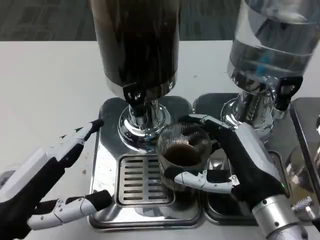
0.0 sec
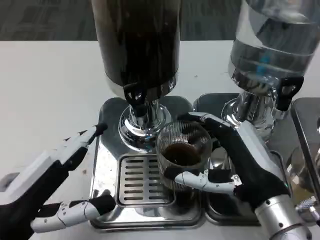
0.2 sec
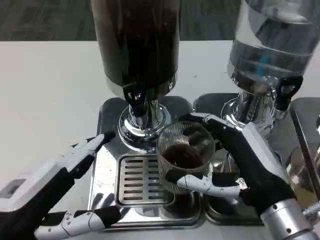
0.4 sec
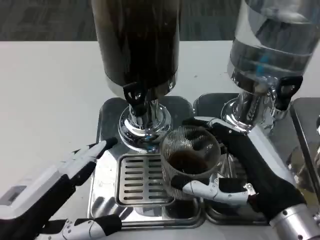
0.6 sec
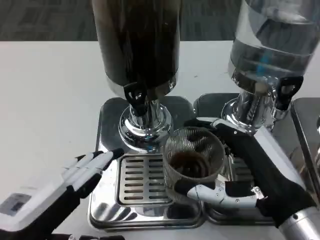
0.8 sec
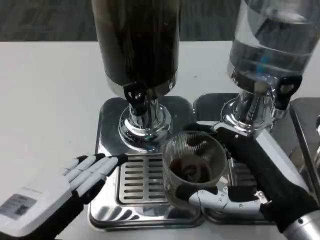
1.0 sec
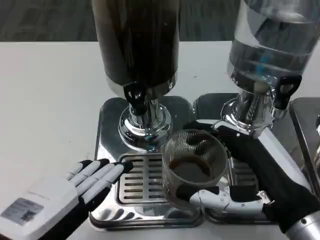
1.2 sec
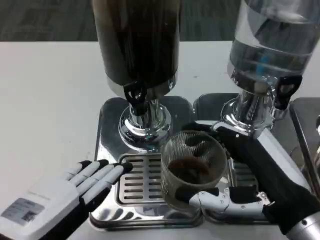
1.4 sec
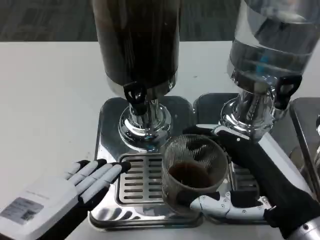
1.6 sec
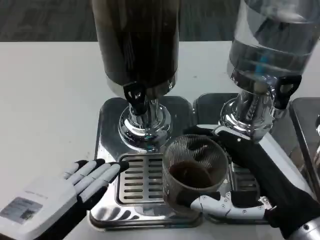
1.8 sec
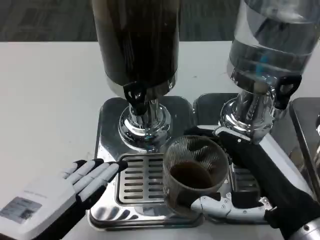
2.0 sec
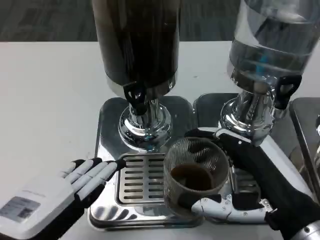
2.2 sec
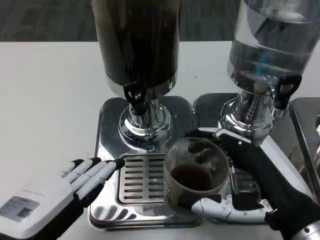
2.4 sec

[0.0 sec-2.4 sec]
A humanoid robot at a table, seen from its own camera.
Task of the whole recording: Grasp the cup under the faucet to collect the drink, then remove the cup.
0.0 sec to 1.2 sec: The right hand changes place by approximately 5 cm.
1.2 sec to 2.4 sec: The two hands keep their place.

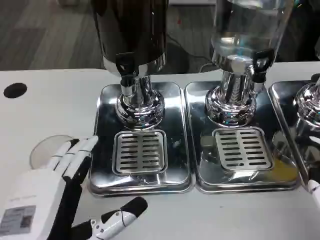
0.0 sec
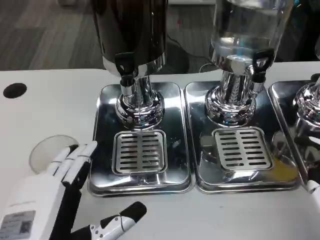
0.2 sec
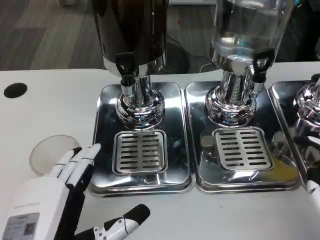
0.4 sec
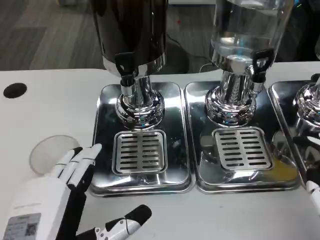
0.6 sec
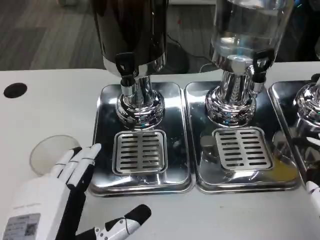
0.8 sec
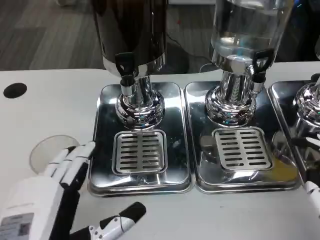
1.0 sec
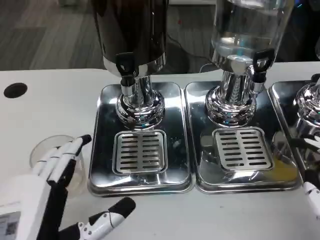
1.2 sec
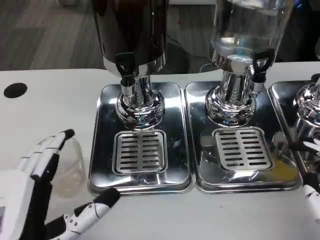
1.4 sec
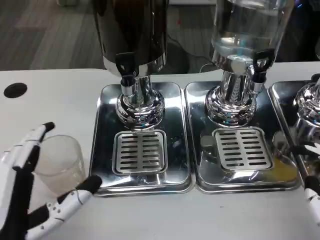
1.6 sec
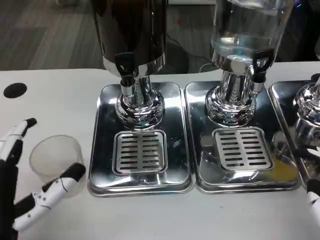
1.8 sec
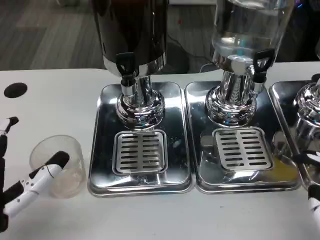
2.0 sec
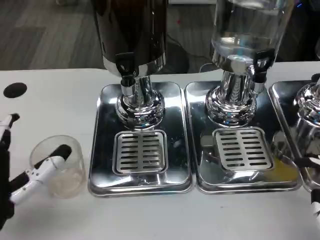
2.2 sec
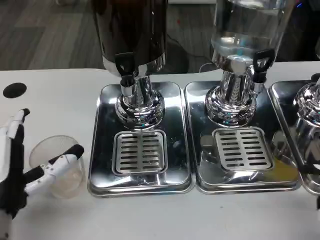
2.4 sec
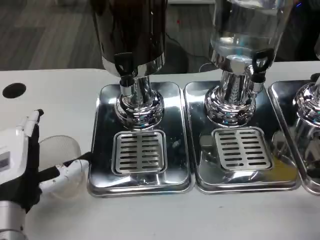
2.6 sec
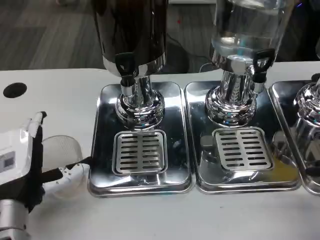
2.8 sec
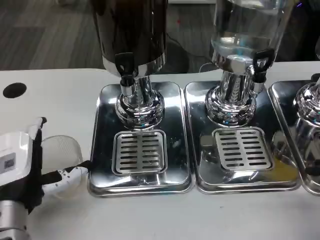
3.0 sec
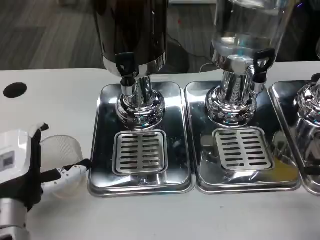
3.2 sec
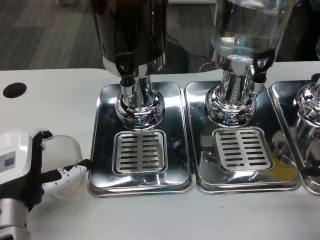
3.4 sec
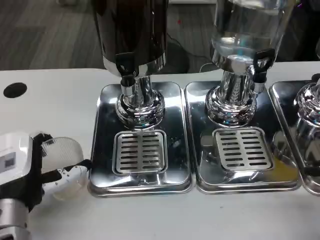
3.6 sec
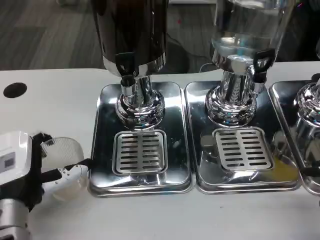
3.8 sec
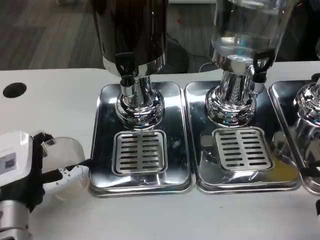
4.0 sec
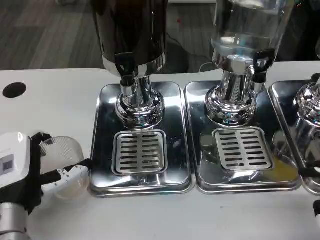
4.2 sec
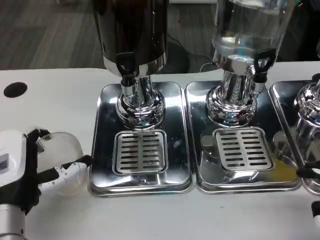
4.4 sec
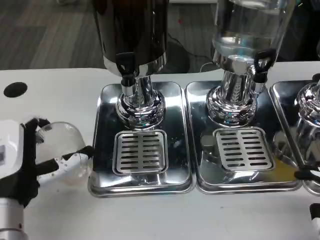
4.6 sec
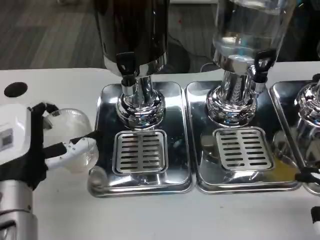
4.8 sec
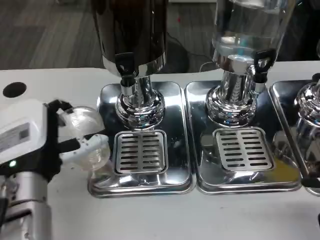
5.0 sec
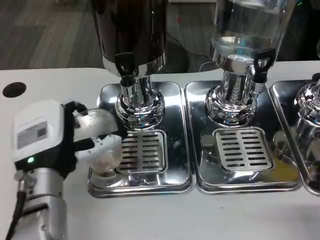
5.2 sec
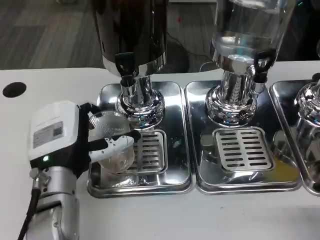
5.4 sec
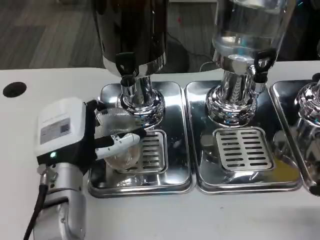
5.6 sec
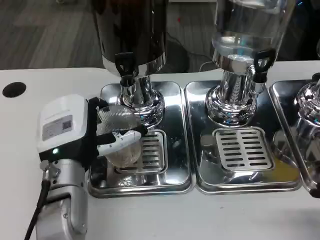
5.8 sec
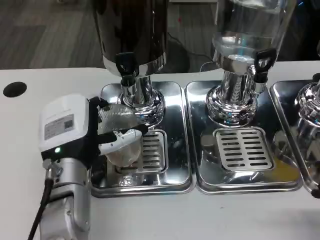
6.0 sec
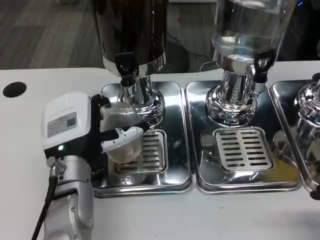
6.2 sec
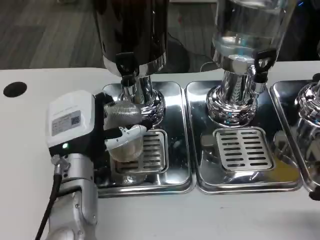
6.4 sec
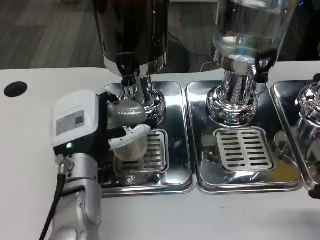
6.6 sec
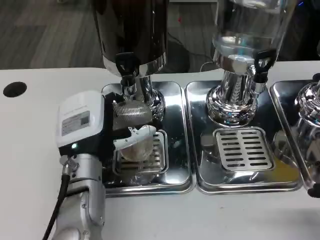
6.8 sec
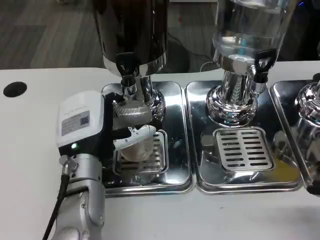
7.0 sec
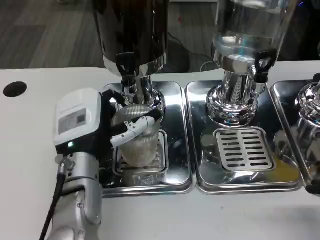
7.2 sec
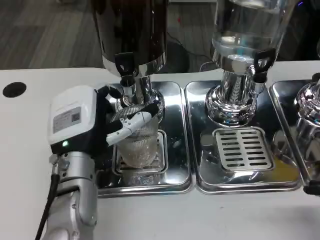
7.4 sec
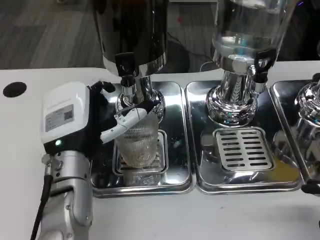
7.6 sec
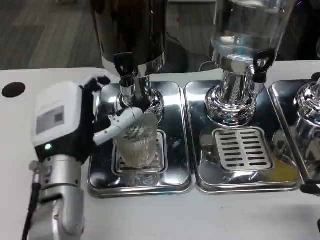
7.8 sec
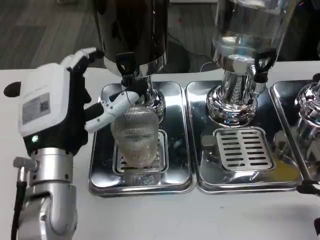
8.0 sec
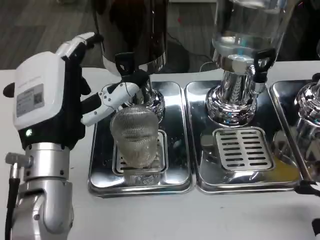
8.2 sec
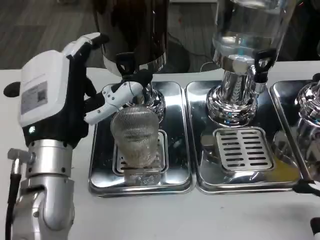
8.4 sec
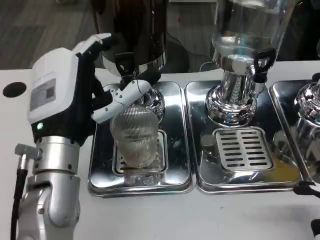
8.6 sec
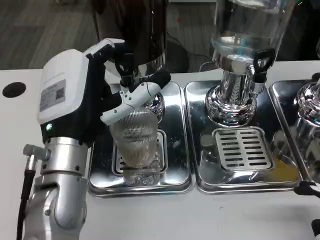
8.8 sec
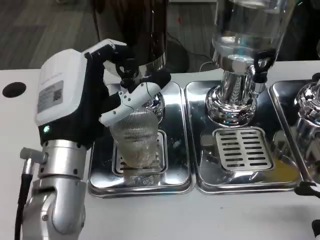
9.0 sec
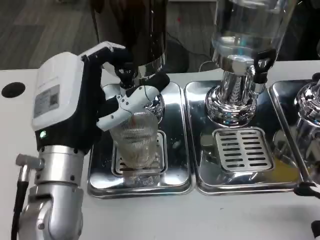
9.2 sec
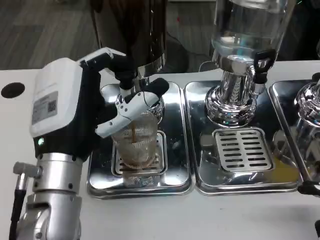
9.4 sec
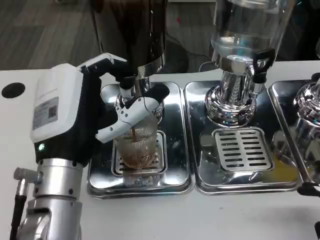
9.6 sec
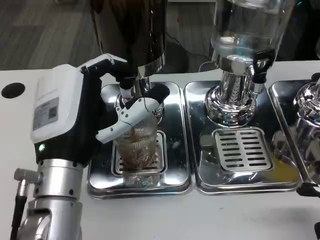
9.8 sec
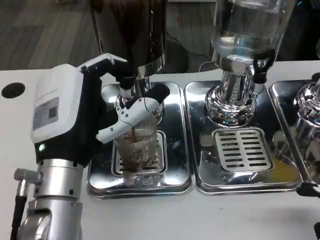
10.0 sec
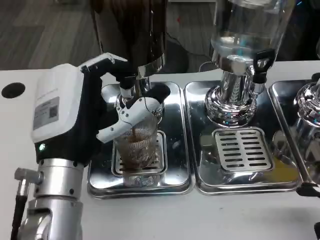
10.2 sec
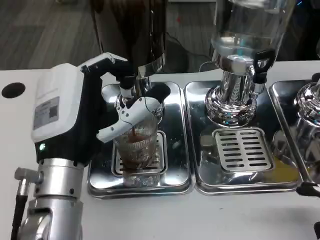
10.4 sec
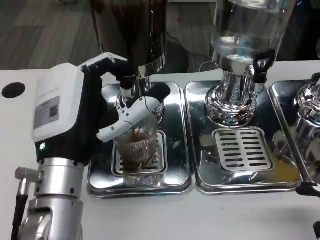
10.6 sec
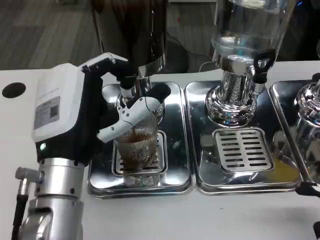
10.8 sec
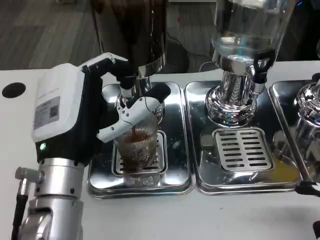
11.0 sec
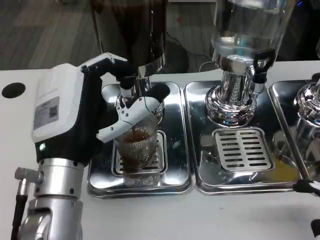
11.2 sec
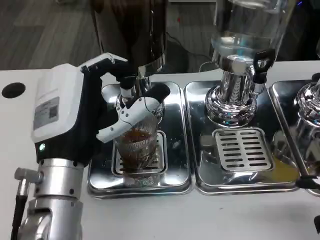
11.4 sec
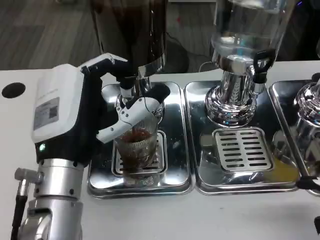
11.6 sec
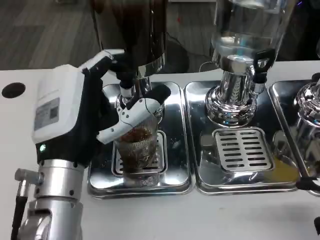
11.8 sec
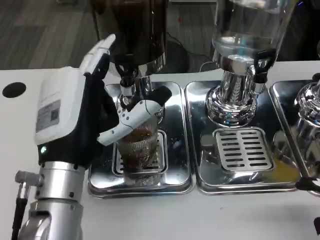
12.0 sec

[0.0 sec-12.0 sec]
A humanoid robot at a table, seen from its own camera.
Task of the whole recording: Grasp the cup under the faucet to collect the drink, then remove the cup.
0.0 sec to 1.6 sec: The hands stay close to where they were, moving slightly.
1.6 sec to 3.0 sec: The left hand is displaced forward by roughly 10 cm.
3.0 sec to 4.4 sec: The hands move only a little.
4.4 sec to 6.0 sec: The left hand shifts about 10 cm forward and to the right.
6.0 sec to 7.6 sec: There are only small adjustments of the hands.
7.6 sec to 9.0 sec: The left hand travels upward by roughly 5 cm.
9.0 sec to 10.4 sec: There are only small adjustments of the hands.
10.4 sec to 12.0 sec: Neither hand changes place.

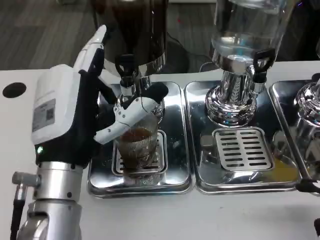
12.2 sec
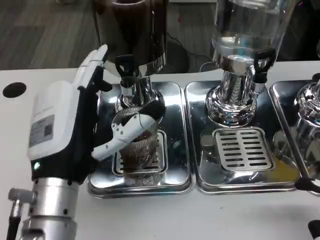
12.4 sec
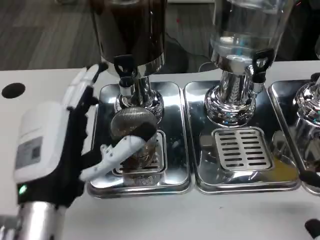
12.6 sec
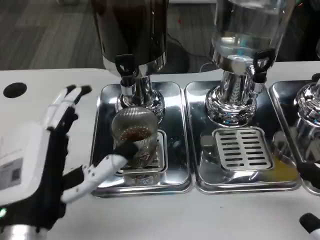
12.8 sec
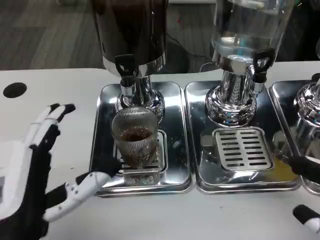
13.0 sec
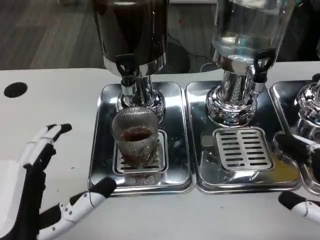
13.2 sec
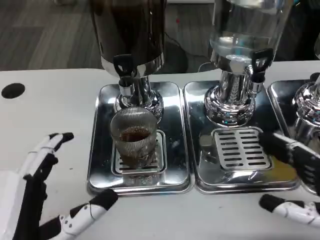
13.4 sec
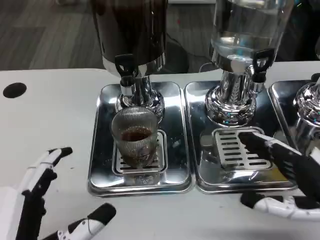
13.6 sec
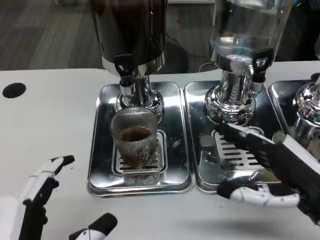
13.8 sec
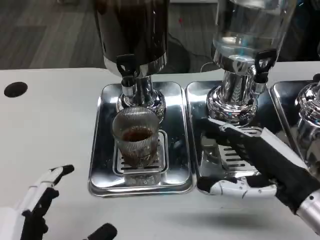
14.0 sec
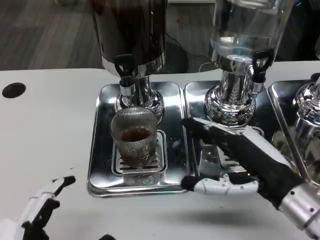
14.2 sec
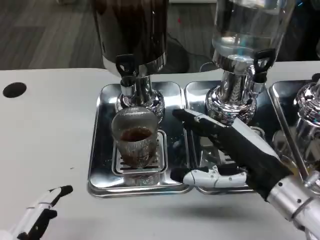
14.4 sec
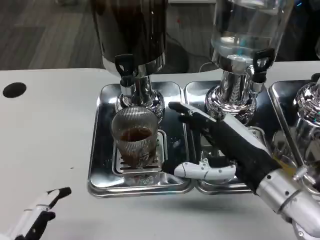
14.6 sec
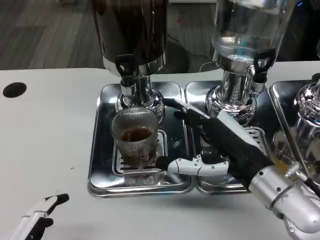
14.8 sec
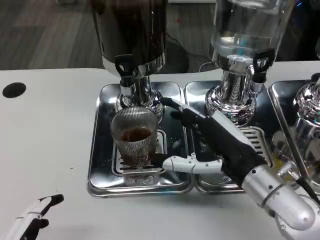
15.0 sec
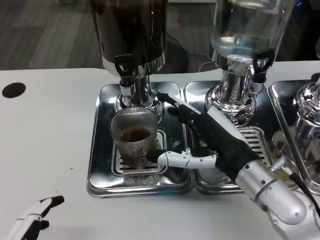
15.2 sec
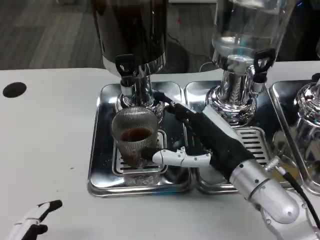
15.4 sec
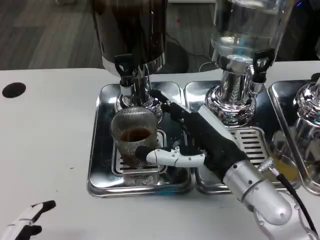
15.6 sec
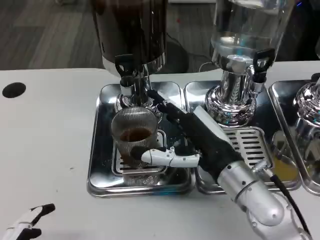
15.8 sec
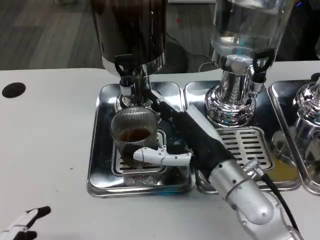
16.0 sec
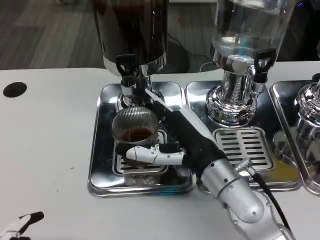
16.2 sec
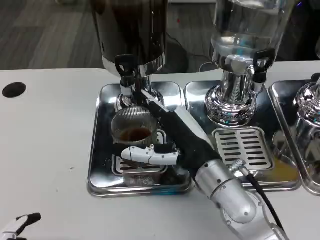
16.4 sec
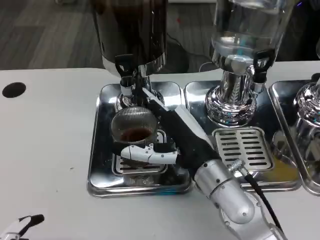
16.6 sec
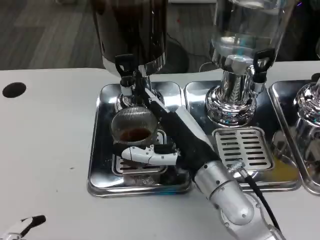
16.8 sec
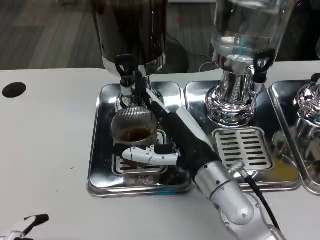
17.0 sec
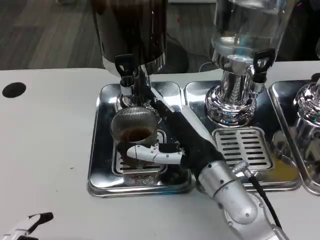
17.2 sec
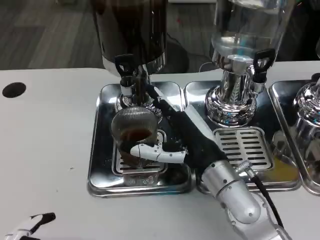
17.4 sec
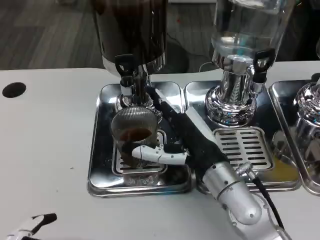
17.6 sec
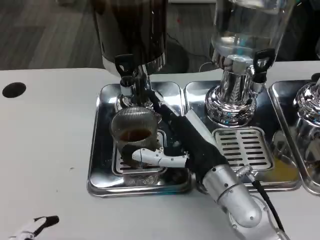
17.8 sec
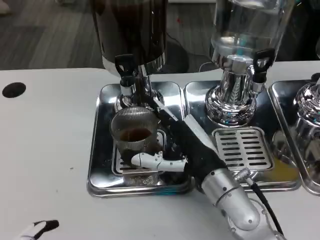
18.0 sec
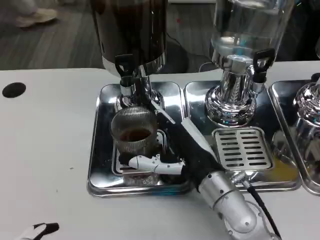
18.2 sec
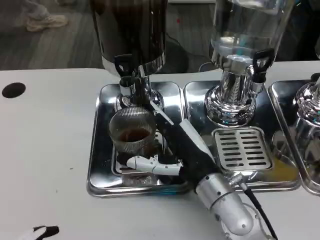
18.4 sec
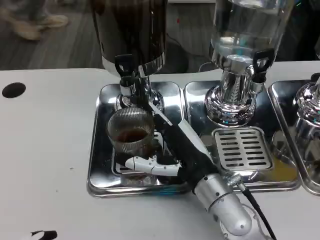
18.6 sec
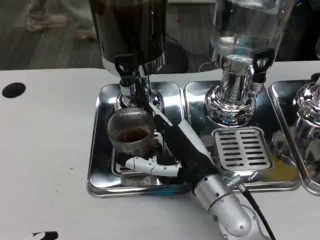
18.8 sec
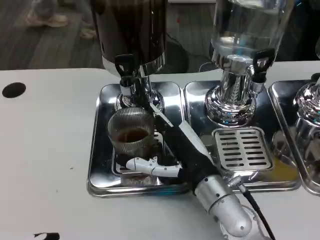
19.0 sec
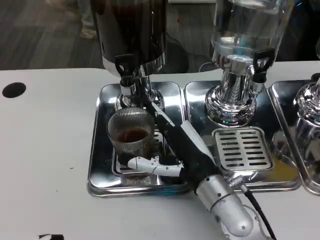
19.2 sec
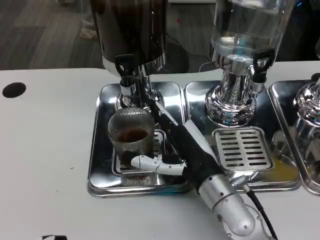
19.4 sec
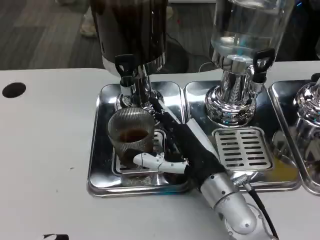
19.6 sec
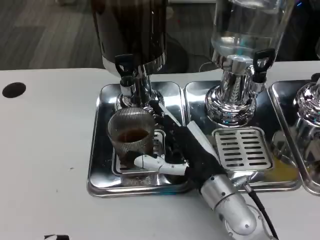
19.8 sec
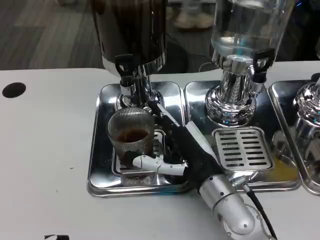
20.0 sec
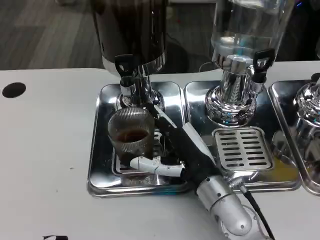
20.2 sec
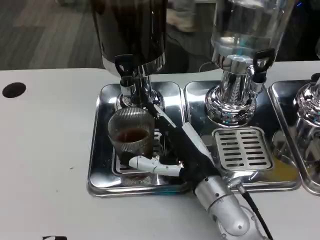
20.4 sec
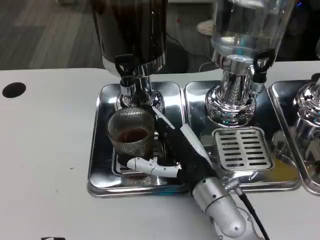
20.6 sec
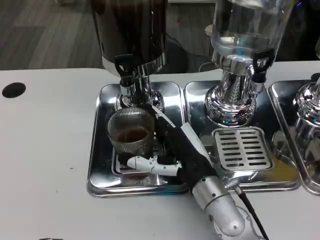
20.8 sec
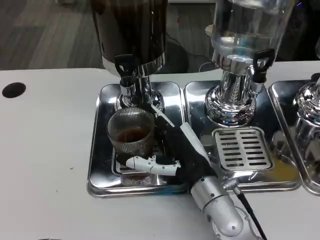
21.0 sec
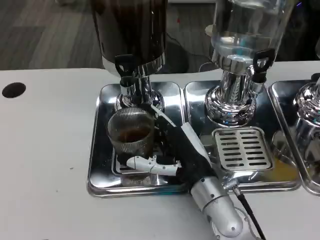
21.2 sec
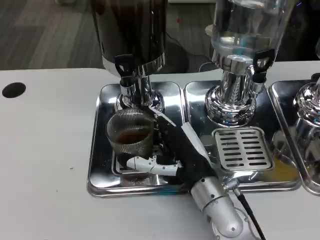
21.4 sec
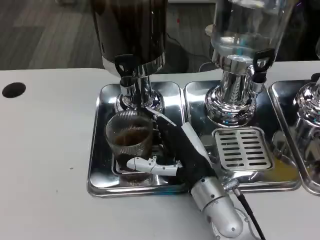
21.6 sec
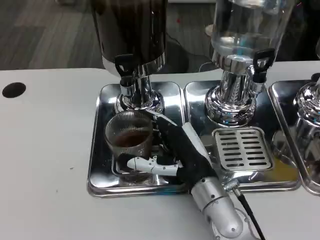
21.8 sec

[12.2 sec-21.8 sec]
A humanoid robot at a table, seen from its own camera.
Task of the whole recording: Grasp the cup under the faucet to collect the drink, then remove the cup.
12.2 sec to 13.8 sec: The right hand moves forward and to the left, some 15 cm, while the left hand goes roughly 15 cm backward.
13.8 sec to 15.4 sec: The right hand goes some 10 cm to the left and forward; the left hand changes place by approximately 5 cm.
15.4 sec to 17.0 sec: The right hand moves roughly 5 cm.
17.0 sec to 18.6 sec: There are only small adjustments of the hands.
18.6 sec to 20.2 sec: Both hands stay about where they are.
20.2 sec to 21.8 sec: Neither hand changes place.
